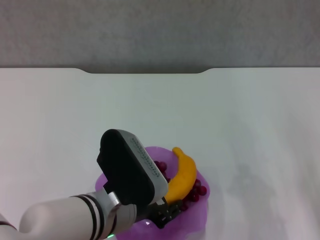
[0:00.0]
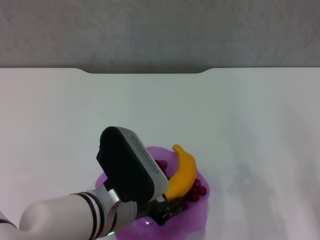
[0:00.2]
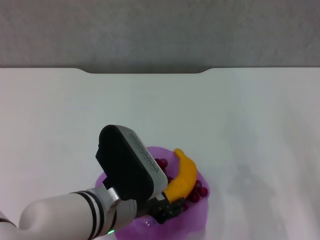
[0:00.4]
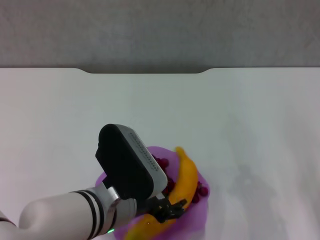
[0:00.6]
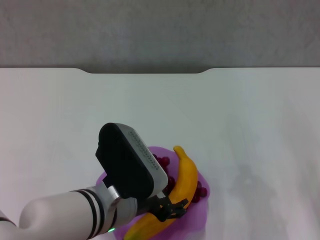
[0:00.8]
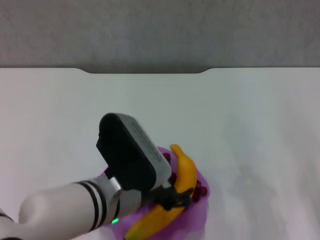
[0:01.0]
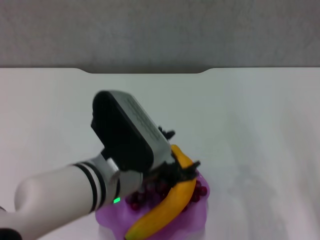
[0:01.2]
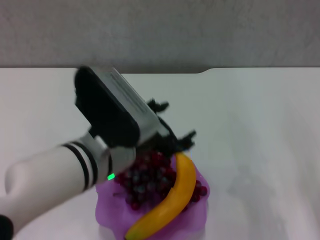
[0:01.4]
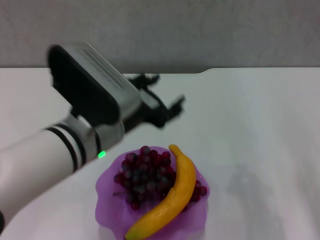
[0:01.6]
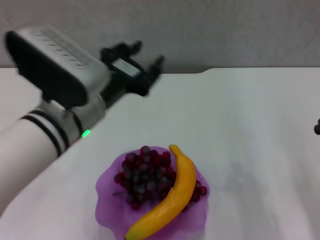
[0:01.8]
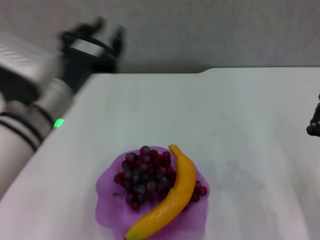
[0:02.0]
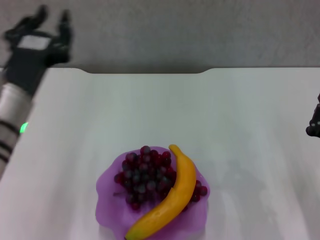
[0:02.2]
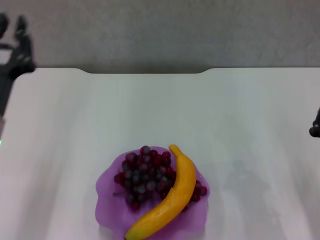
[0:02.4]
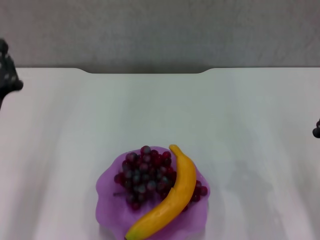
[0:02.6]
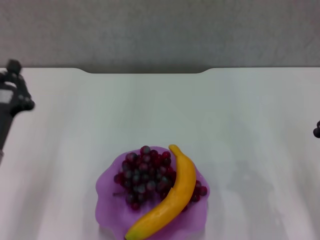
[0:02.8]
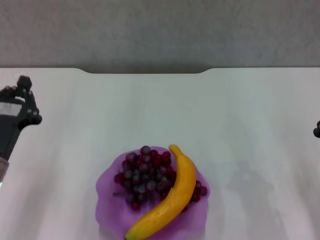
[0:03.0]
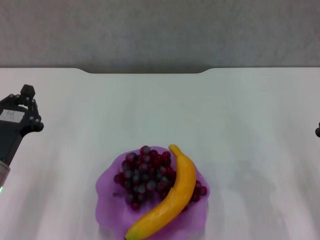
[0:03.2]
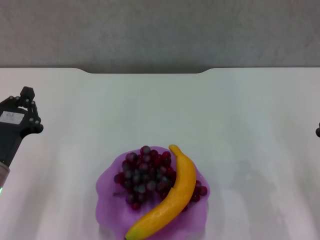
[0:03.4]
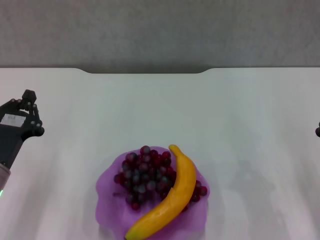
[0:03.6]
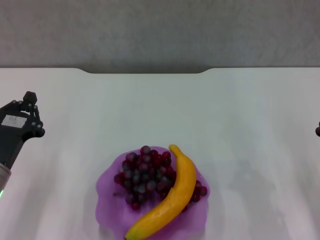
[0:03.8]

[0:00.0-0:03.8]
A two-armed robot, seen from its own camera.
0:00.0 to 0:01.2: The left gripper opens.
0:01.2 to 0:02.6: The left gripper is displaced to the left by roughly 15 cm, and closes its fingers.
0:02.6 to 0:03.8: The left gripper moves downward, approximately 5 cm.

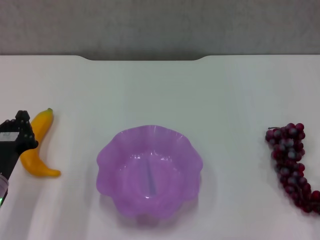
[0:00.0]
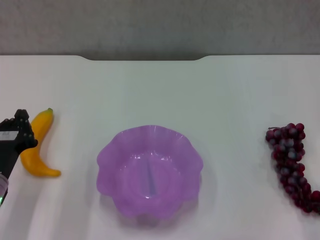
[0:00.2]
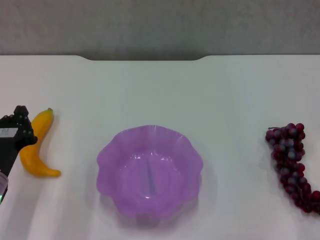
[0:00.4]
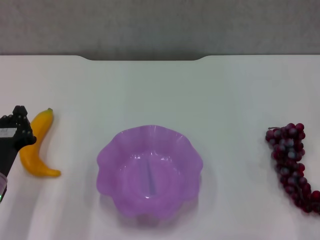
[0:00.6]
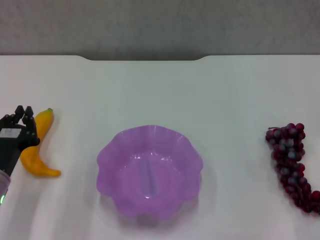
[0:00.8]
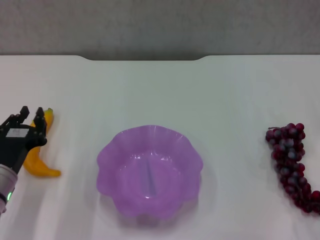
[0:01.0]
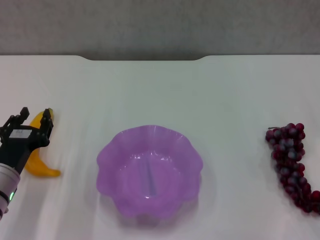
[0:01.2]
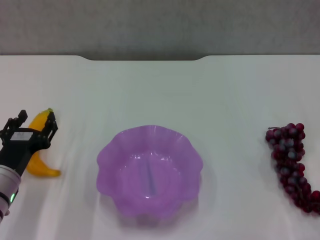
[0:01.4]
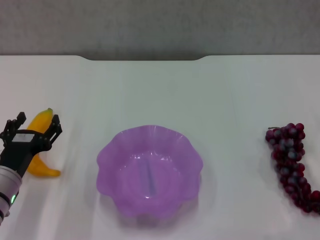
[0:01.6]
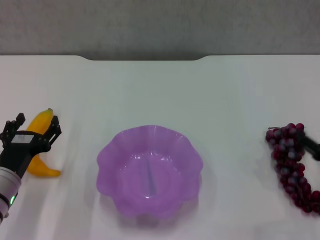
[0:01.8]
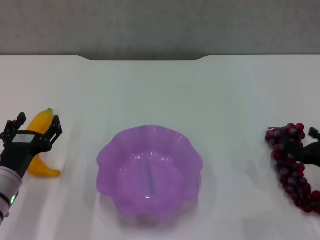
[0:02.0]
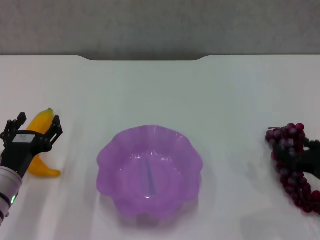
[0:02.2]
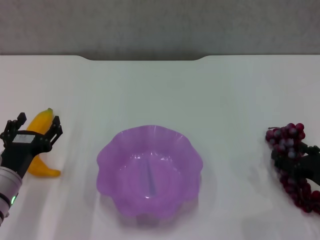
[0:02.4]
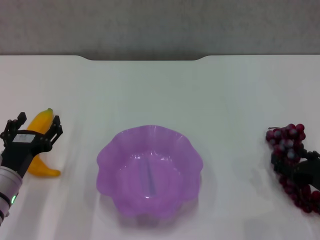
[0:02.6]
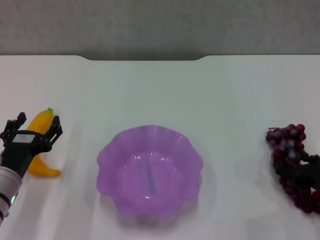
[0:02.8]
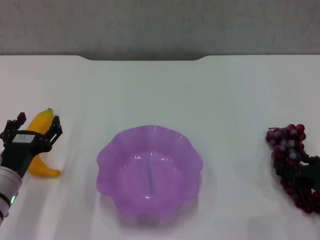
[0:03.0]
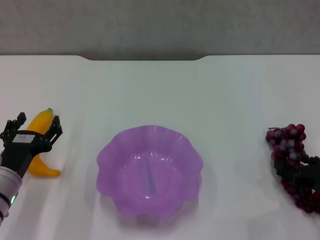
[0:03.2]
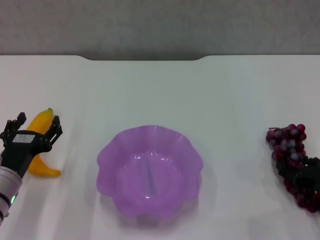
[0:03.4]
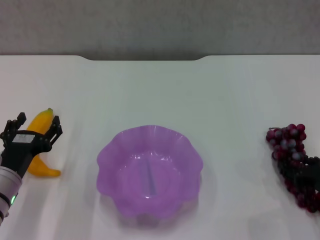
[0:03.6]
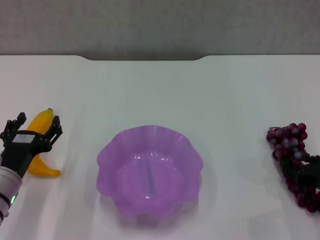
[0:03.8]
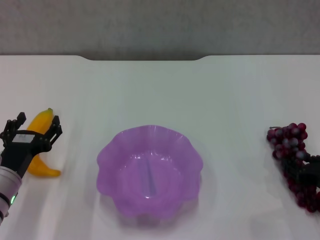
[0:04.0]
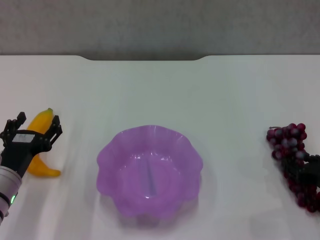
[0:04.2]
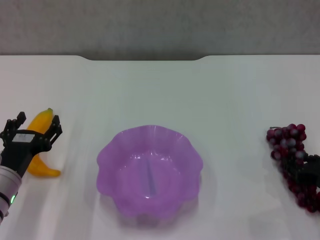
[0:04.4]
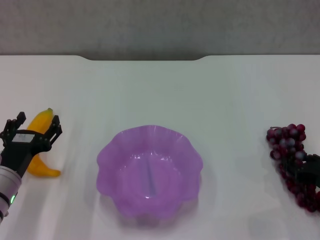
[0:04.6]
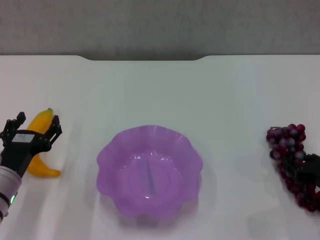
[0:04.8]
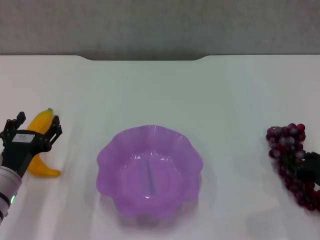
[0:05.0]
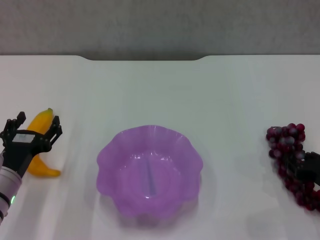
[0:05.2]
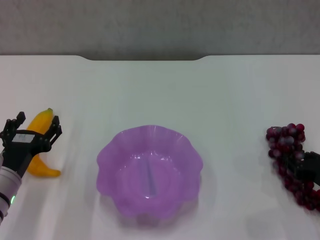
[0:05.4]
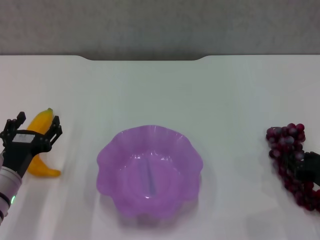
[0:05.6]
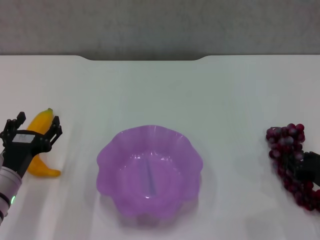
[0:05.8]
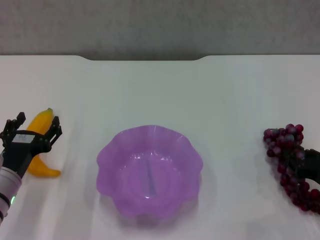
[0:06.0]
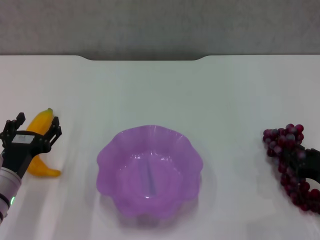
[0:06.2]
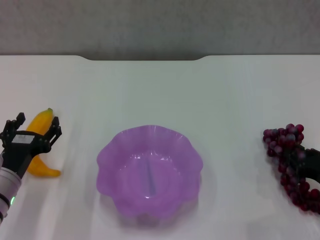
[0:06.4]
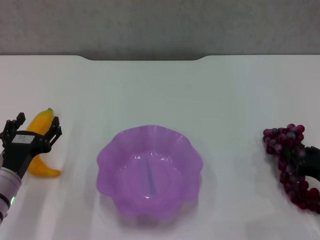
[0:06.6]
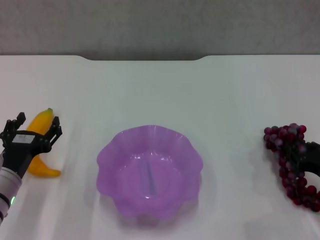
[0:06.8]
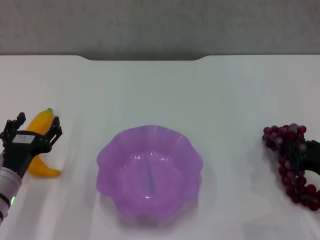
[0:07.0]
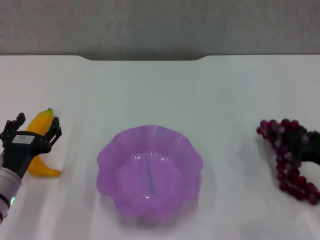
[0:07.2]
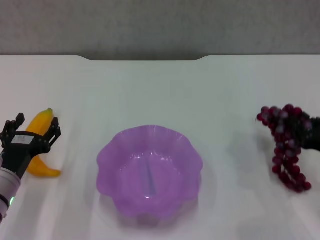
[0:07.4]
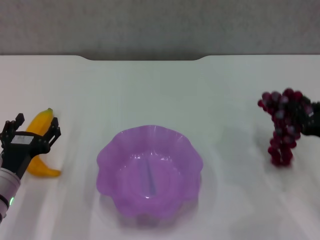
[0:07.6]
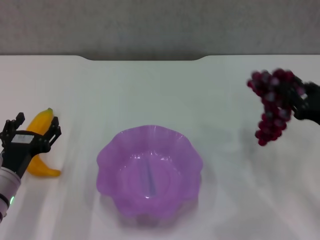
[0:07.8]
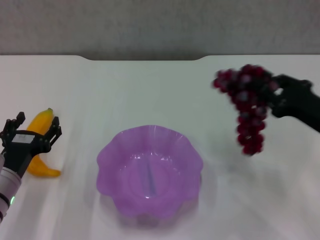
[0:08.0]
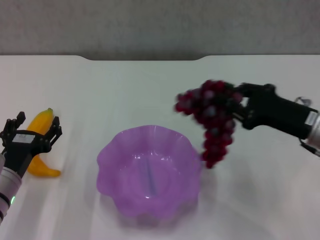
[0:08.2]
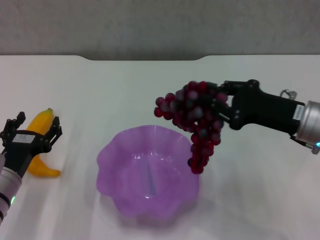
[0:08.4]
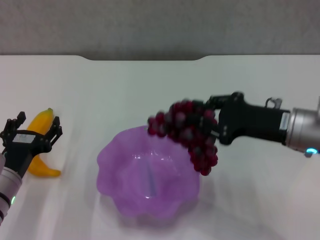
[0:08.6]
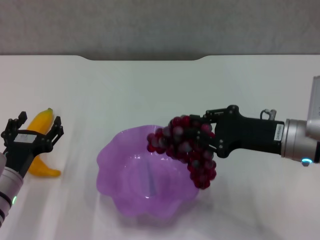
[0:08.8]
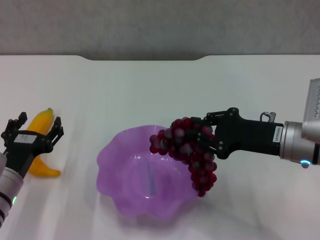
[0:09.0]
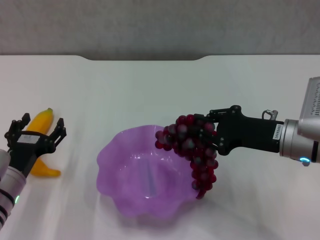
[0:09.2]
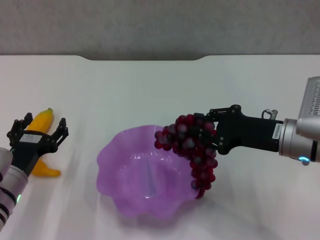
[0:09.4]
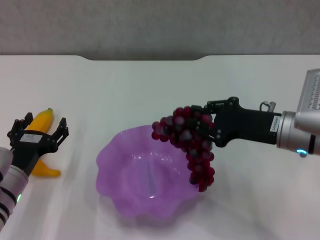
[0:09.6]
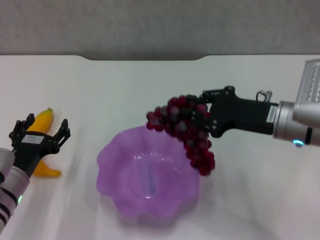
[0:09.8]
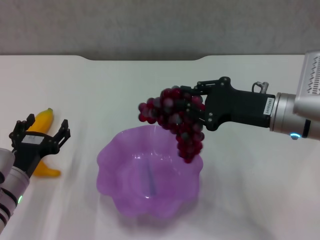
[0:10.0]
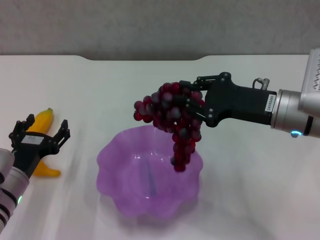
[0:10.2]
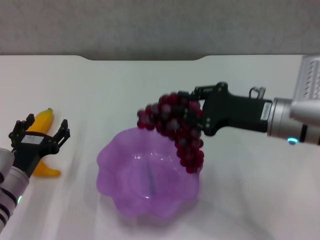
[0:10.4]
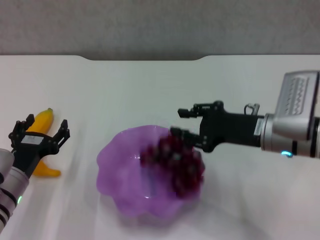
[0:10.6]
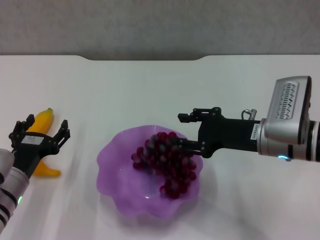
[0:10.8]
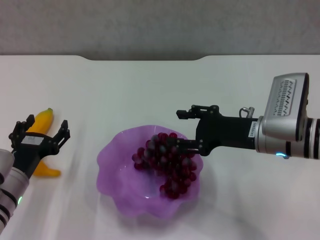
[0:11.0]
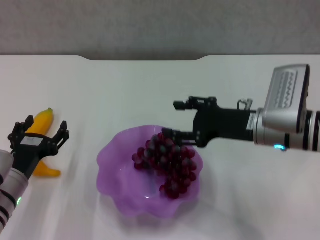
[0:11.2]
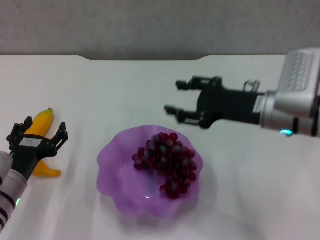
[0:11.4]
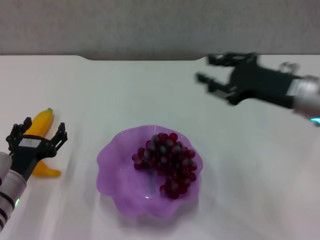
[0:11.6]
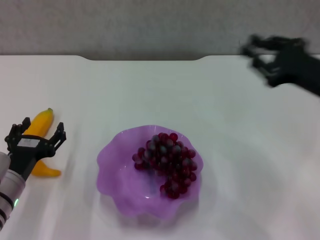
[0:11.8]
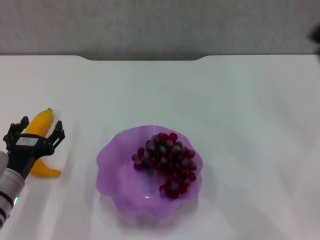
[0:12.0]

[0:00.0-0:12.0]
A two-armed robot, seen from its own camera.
Step, 0:00.0 to 0:05.6: Grasp the grape with right gripper.
Step, 0:05.8 to 0:11.2: Place the grape in the purple plate with right gripper.
0:00.0 to 0:01.6: The left gripper opens up.
0:03.0 to 0:04.4: Neither gripper changes place.
0:04.4 to 0:06.0: The grippers make only small movements.
0:06.0 to 0:07.6: The right gripper shifts roughly 5 cm upward.
0:07.6 to 0:09.0: The right gripper shifts approximately 10 cm to the left.
0:09.0 to 0:10.4: The grippers make only small movements.
0:10.4 to 0:12.0: The right gripper shifts approximately 15 cm to the right and backward, and opens and closes again.

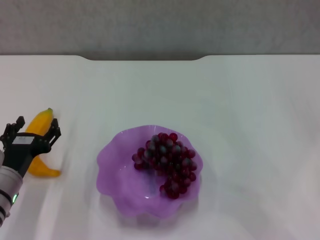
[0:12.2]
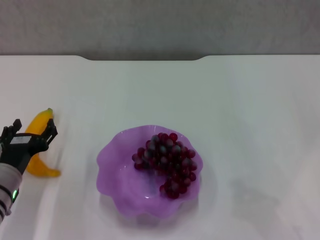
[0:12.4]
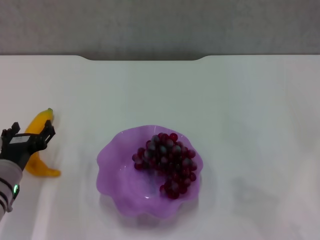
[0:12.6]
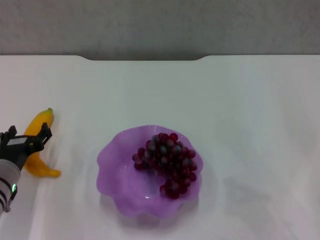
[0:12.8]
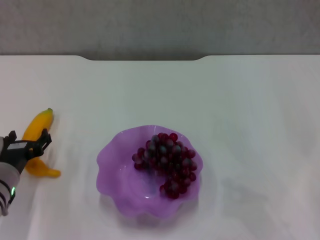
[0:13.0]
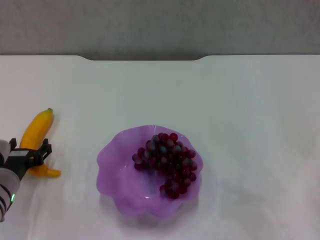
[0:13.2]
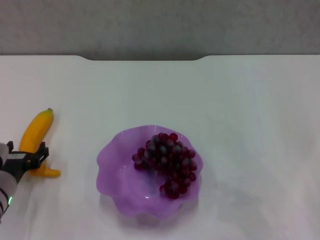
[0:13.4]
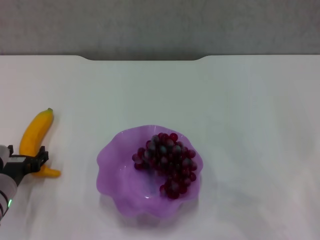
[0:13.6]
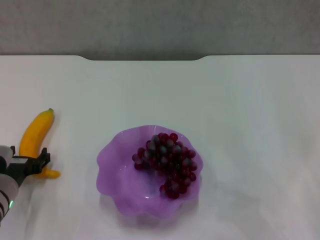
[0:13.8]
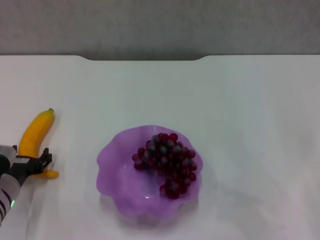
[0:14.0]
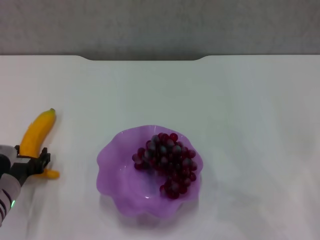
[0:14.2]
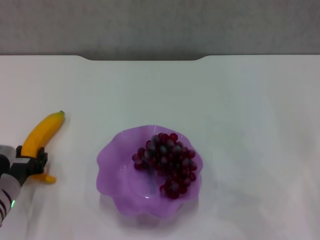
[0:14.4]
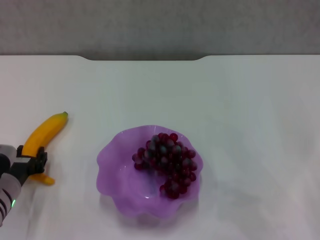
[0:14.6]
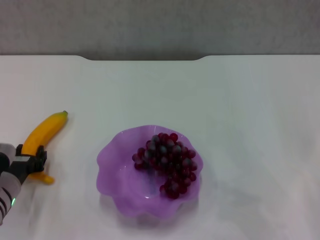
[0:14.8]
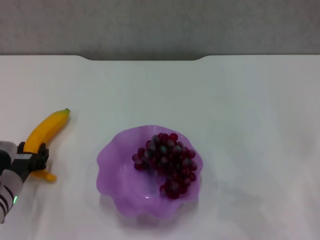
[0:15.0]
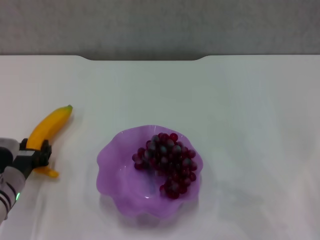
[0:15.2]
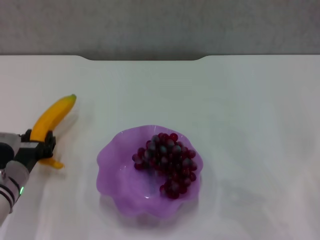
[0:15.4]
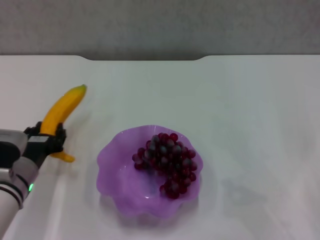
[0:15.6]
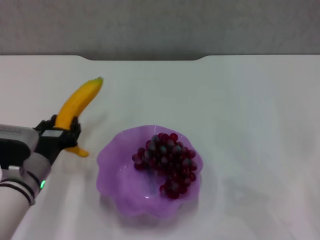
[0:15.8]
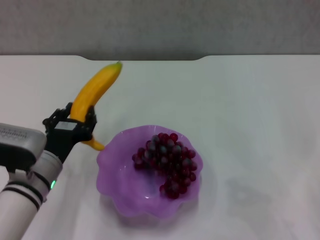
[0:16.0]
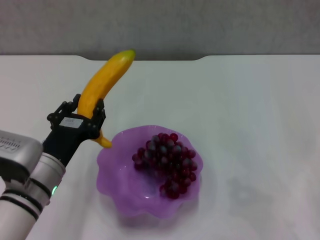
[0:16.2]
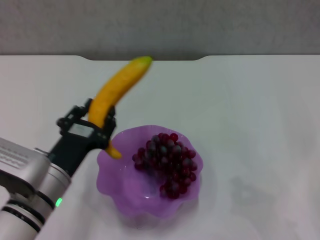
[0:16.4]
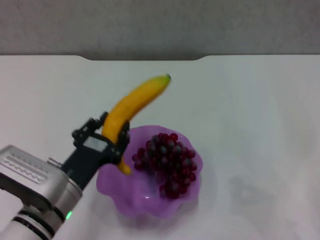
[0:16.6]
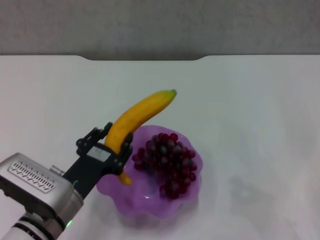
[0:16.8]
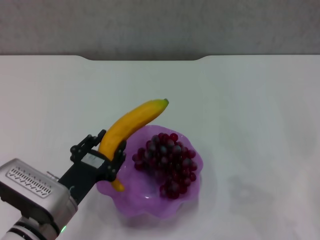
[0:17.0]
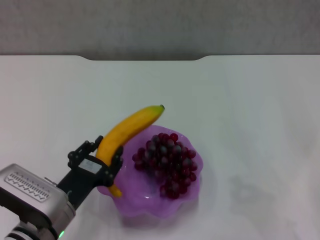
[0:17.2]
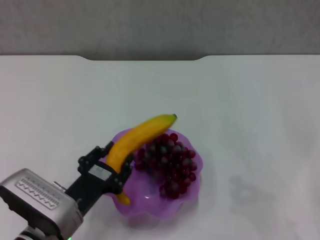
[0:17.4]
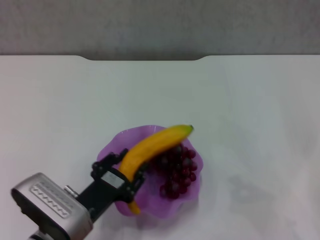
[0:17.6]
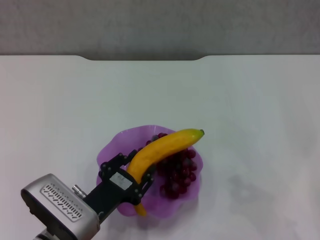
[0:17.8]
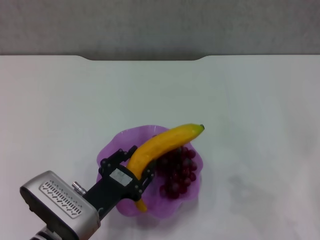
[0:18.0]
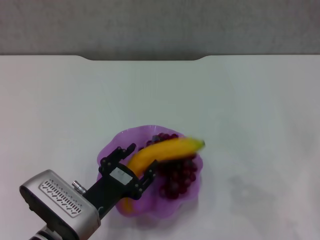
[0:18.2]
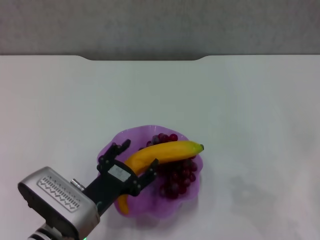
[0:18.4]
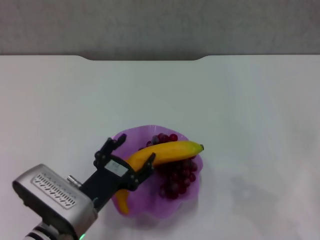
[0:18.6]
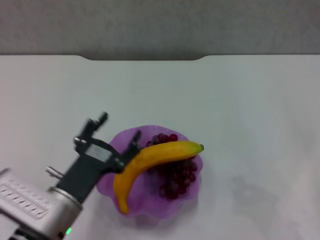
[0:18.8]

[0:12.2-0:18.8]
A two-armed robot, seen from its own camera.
Step, 0:12.2 to 0:14.6: Grasp the banana with left gripper.
Step, 0:14.8 to 0:18.4: Place the banana in the purple plate with left gripper.
0:12.2 to 0:13.8: The grippers move only a little.
0:13.8 to 0:15.4: The left gripper closes.
0:15.4 to 0:17.2: The left gripper moves to the right and backward, roughly 10 cm.
0:17.2 to 0:18.8: The grippers make only small movements.
